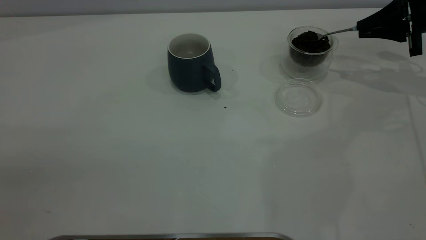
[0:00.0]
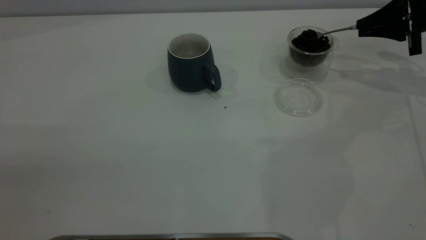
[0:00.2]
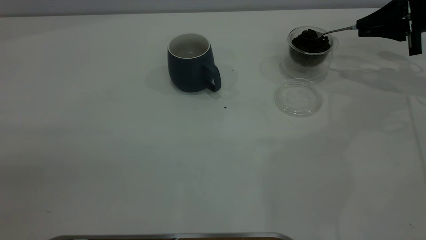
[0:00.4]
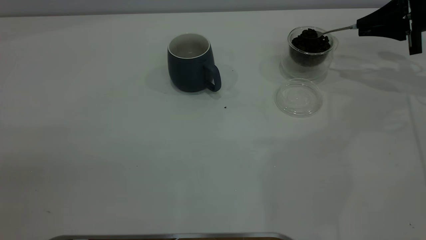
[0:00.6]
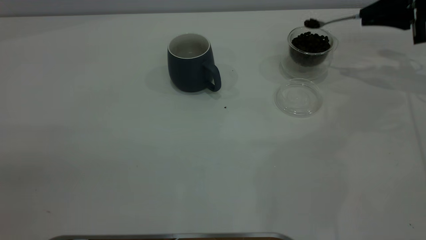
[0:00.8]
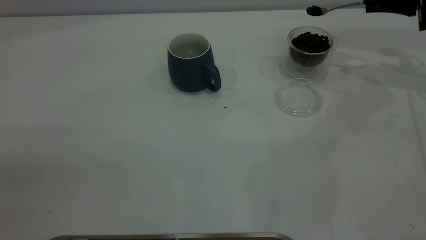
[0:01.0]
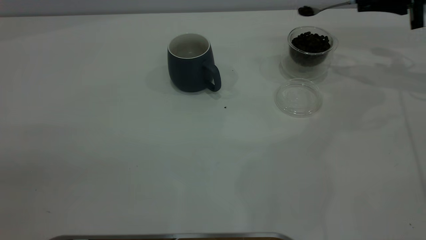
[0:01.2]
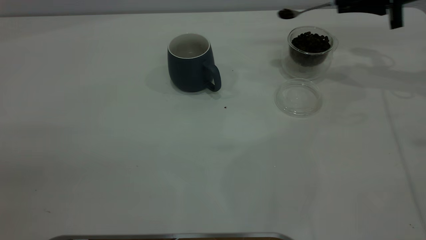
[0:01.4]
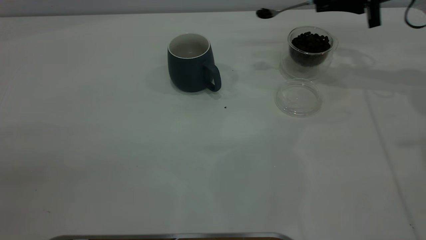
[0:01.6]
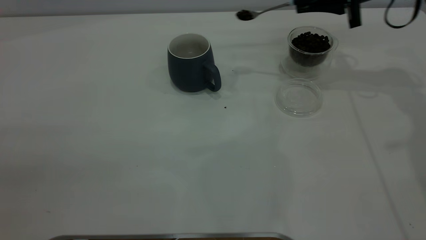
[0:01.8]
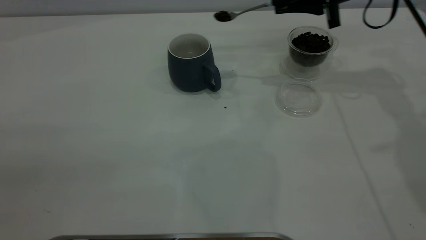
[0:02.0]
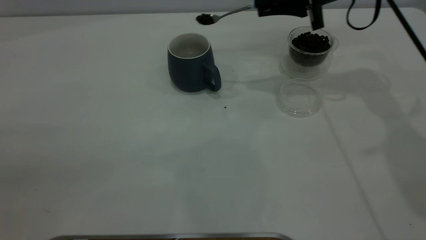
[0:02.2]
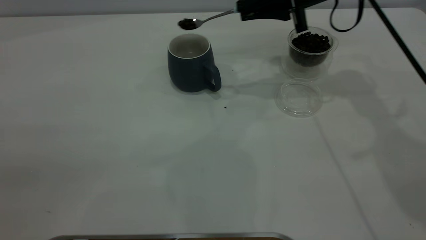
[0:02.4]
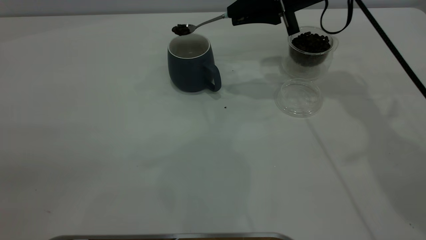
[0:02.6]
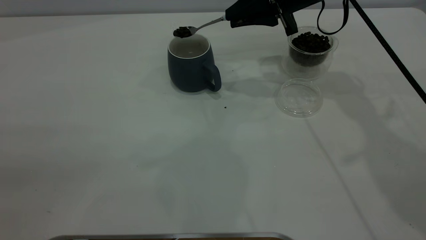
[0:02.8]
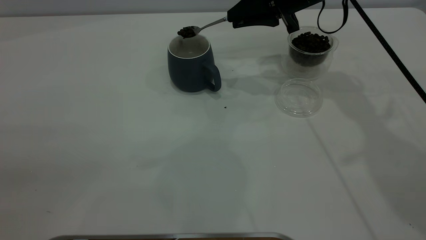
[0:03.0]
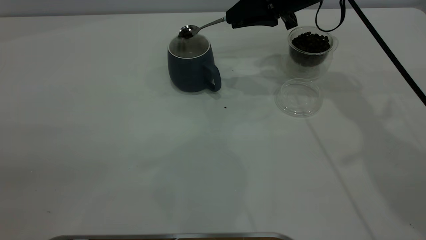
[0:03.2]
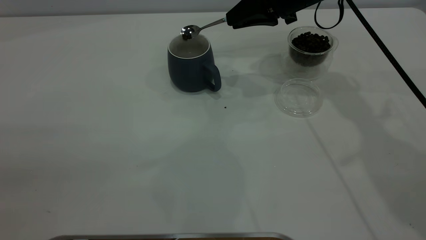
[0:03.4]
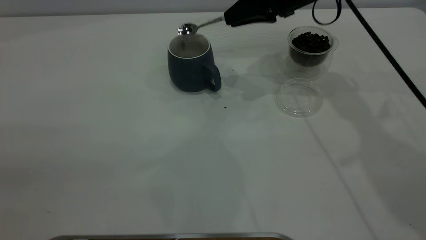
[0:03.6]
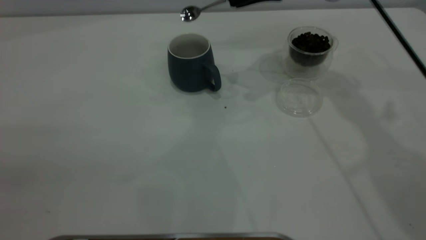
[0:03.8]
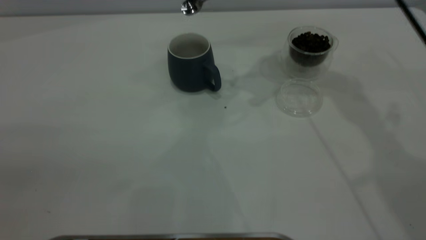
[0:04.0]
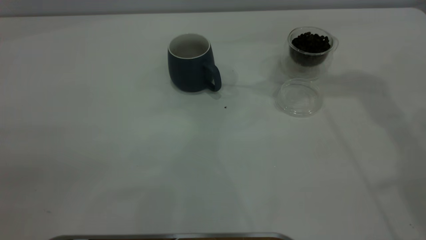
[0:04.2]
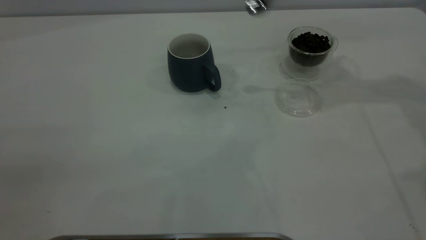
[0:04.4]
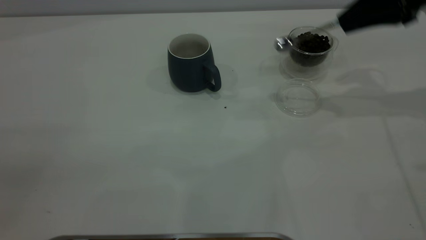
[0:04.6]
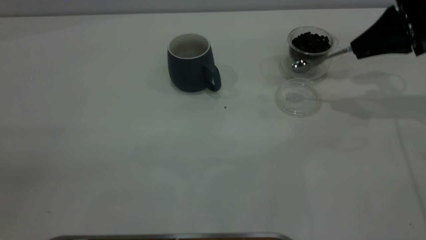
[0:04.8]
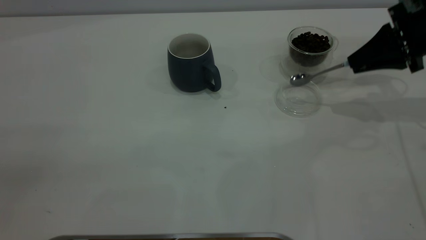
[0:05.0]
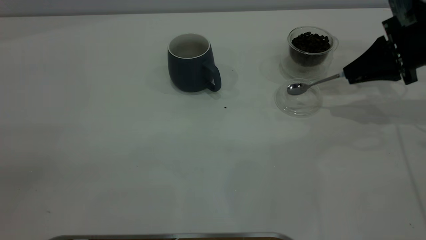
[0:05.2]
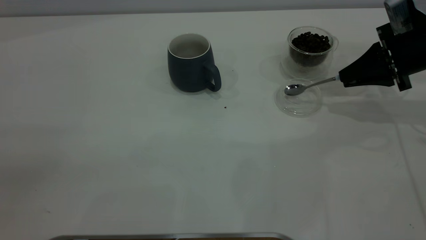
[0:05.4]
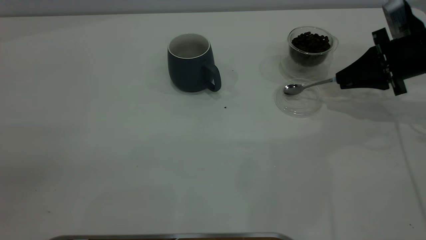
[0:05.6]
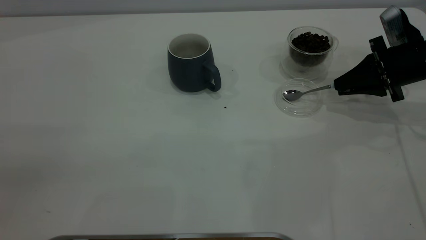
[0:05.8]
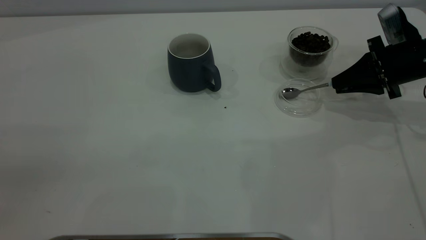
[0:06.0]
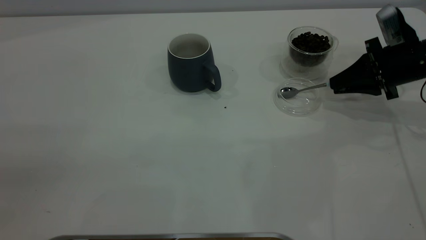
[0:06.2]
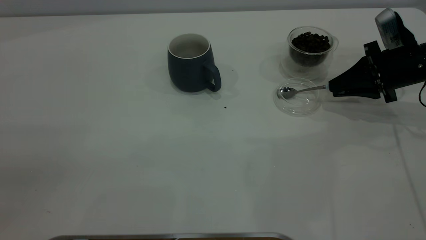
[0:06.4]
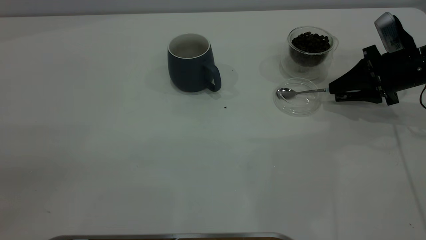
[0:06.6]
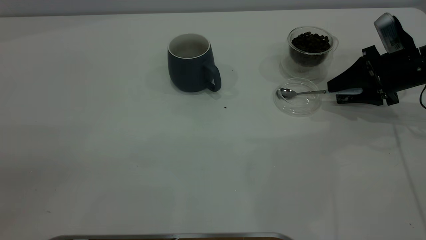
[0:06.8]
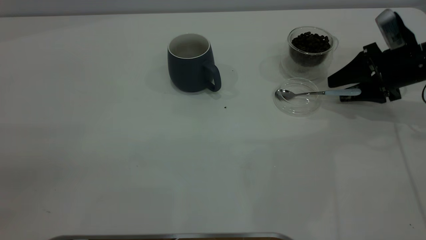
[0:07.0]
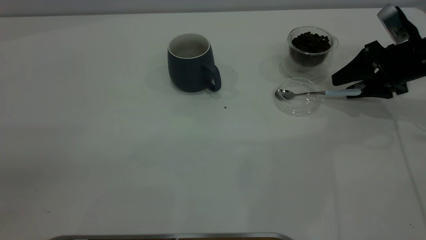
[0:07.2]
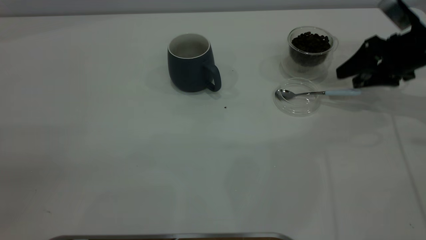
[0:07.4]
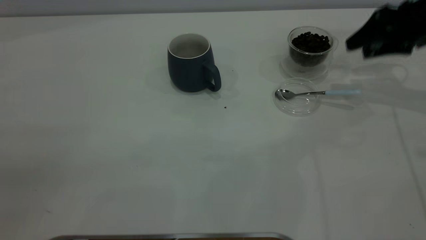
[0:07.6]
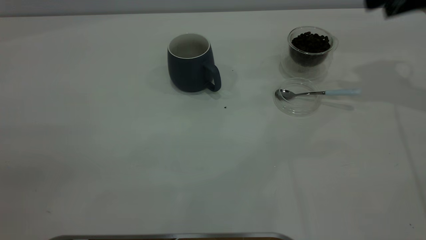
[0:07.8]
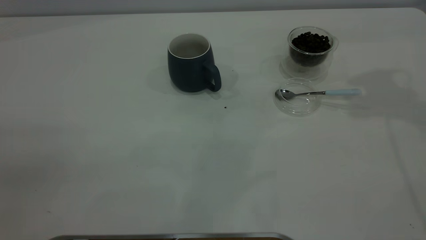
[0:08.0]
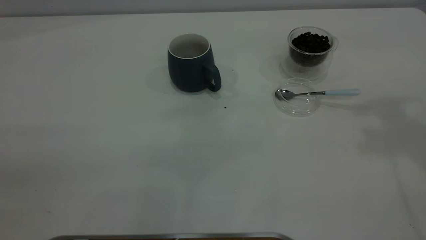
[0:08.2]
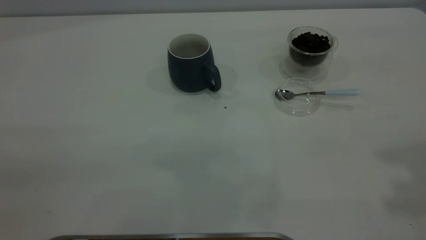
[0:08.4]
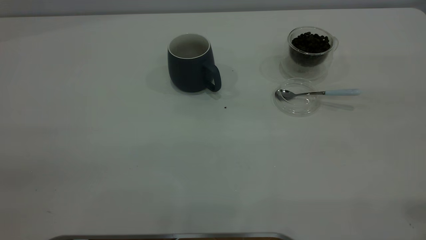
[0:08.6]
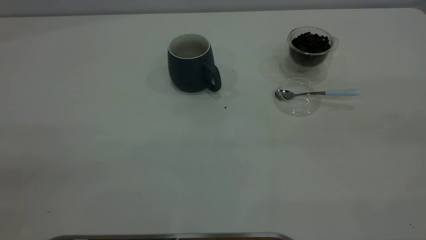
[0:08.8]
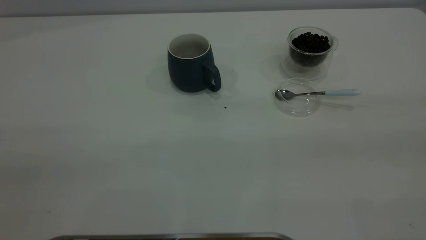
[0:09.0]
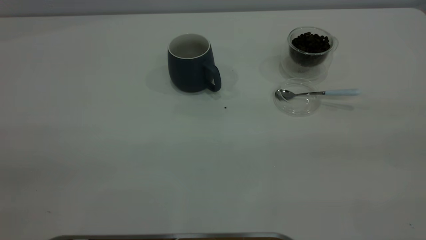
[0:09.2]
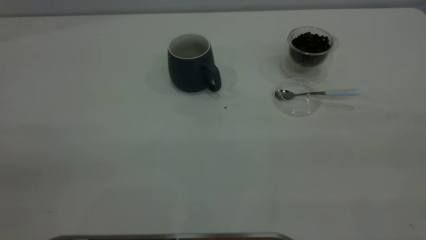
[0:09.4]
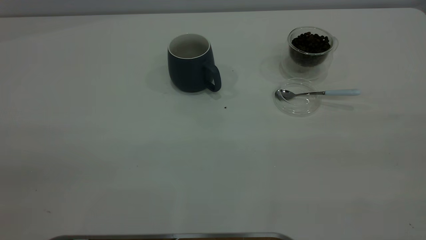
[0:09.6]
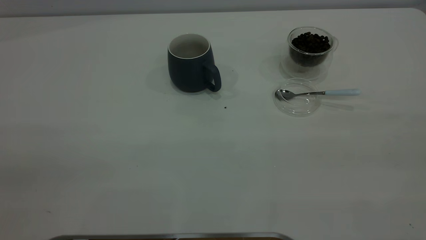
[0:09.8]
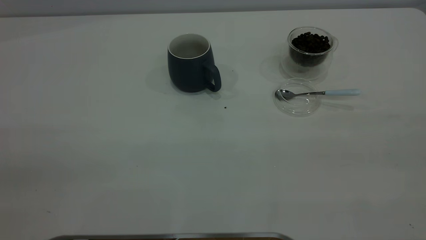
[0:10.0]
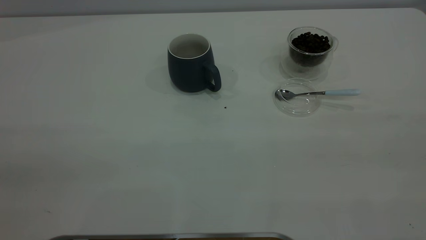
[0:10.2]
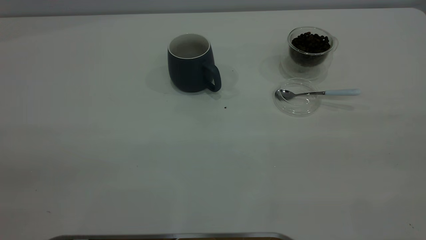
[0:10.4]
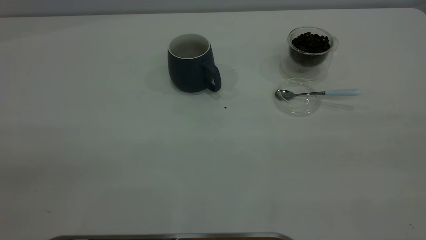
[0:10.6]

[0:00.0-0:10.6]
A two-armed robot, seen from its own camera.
Task of the whole recording: the left gripper place the grey cup in the center of the table, the right gripper take the blue spoon from the cup lid and scoop out the coffee beans from the coffee cup and put them into the grey cup, the right gripper put the spoon back into the cup lid.
Step, 0:00.0 to 0:03.8: Scoop a spoonful of beans into the cup.
Step, 0:04.0 to 0:07.6: Place the spoon back in its original place.
0:00.0 to 0:01.6: The right gripper travels to the left by approximately 10 cm.
0:01.6 to 0:03.0: The right gripper shifts approximately 15 cm to the left.
0:03.0 to 0:04.6: The right gripper is displaced to the right by roughly 15 cm.
0:04.6 to 0:06.0: The right gripper shifts some 10 cm downward.
0:06.0 to 0:07.6: The right gripper is displaced upward by about 10 cm, and opens up.
0:07.6 to 0:09.0: The right gripper travels backward and upward by some 40 cm.
